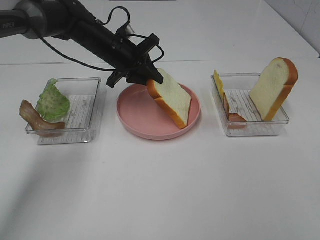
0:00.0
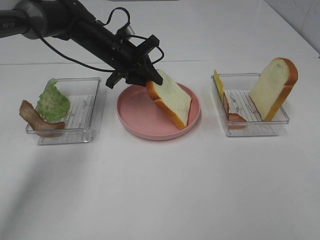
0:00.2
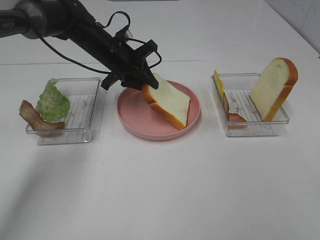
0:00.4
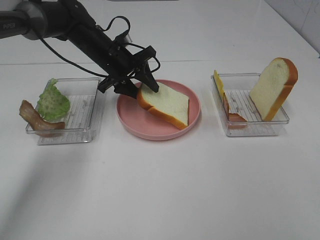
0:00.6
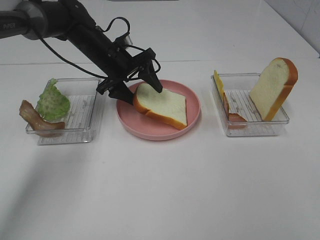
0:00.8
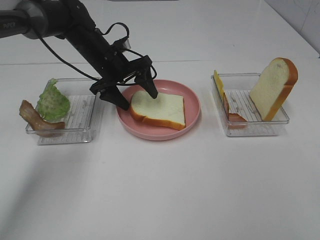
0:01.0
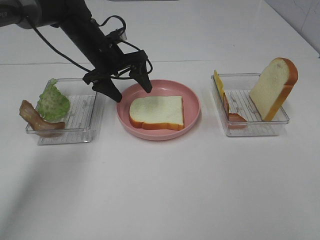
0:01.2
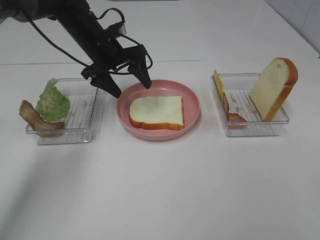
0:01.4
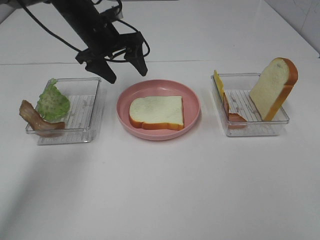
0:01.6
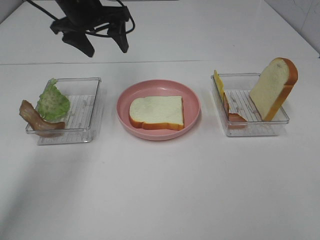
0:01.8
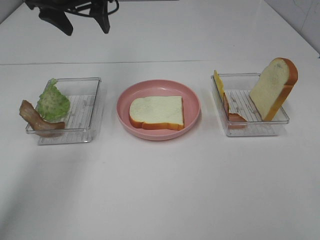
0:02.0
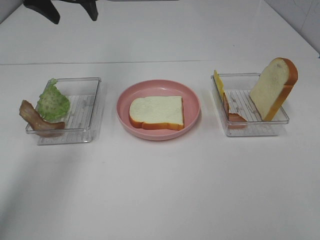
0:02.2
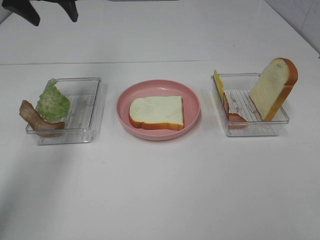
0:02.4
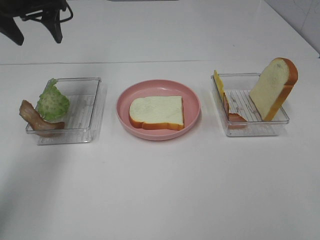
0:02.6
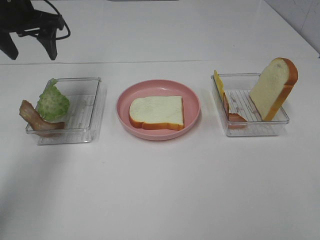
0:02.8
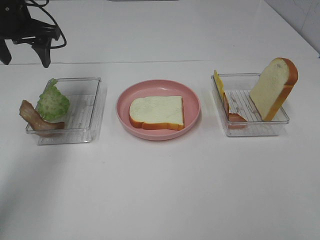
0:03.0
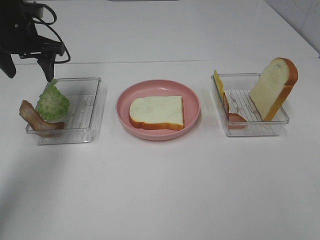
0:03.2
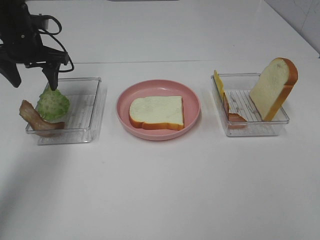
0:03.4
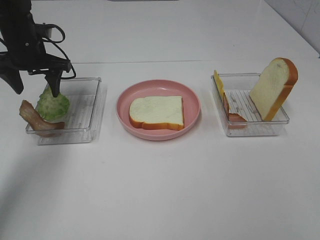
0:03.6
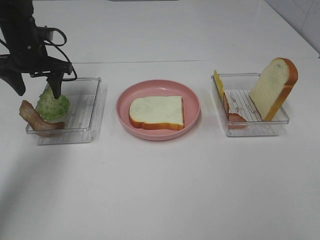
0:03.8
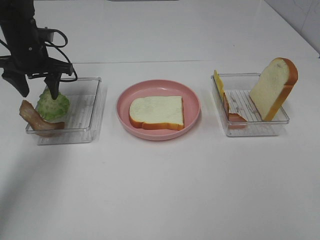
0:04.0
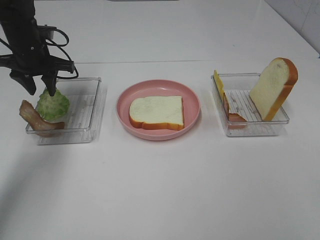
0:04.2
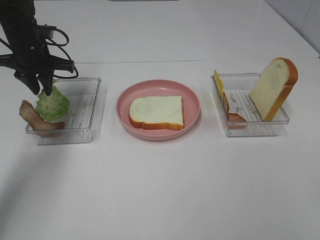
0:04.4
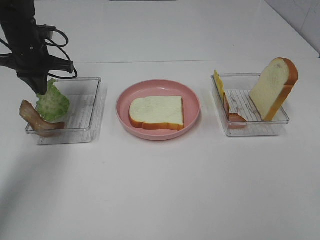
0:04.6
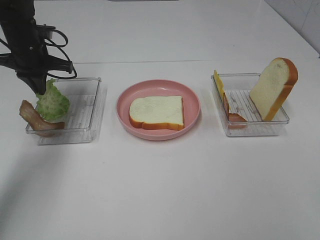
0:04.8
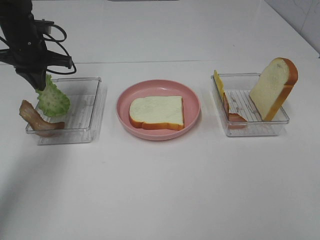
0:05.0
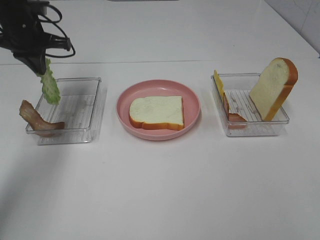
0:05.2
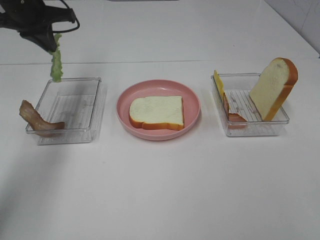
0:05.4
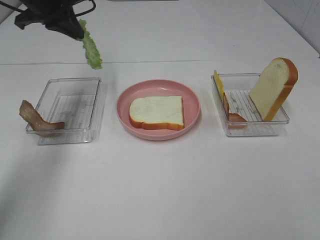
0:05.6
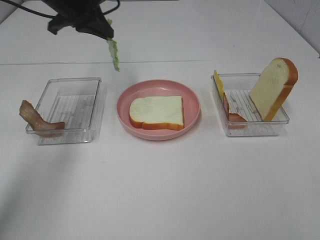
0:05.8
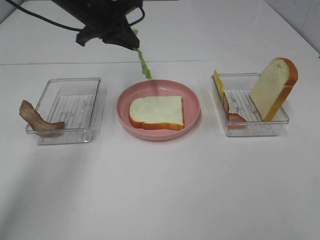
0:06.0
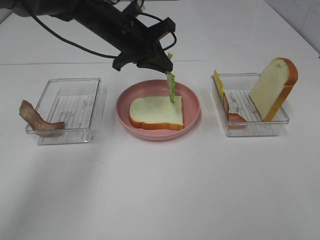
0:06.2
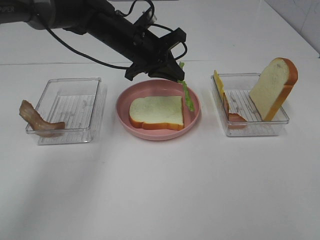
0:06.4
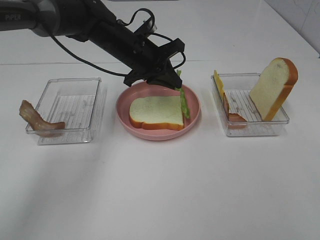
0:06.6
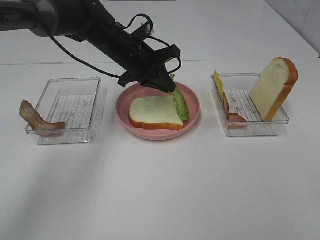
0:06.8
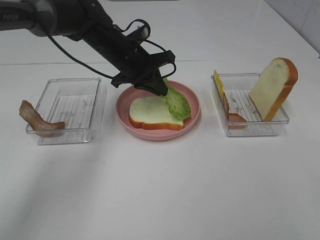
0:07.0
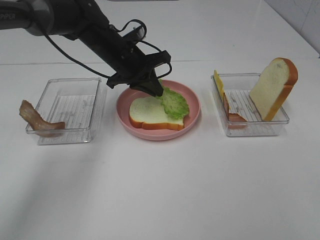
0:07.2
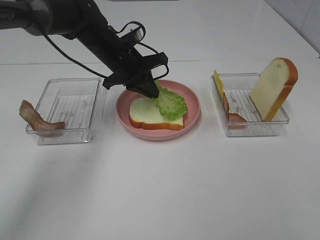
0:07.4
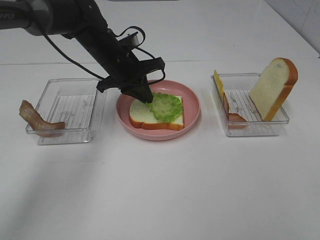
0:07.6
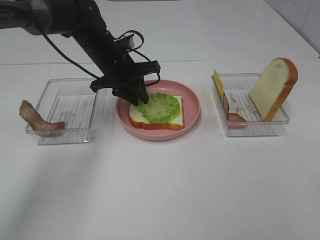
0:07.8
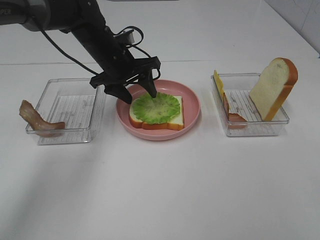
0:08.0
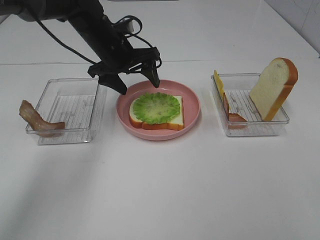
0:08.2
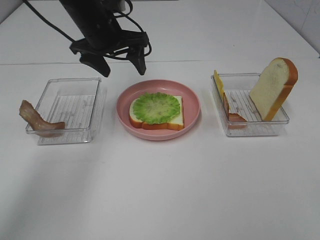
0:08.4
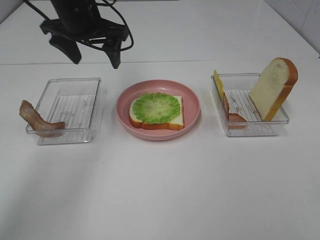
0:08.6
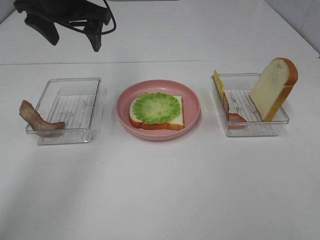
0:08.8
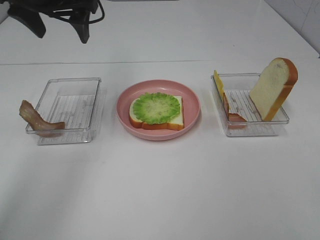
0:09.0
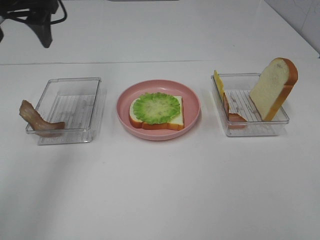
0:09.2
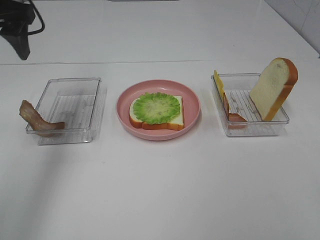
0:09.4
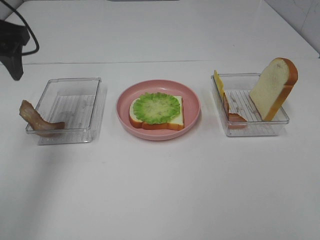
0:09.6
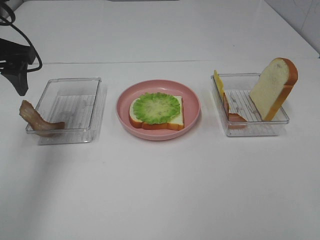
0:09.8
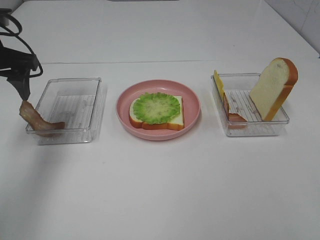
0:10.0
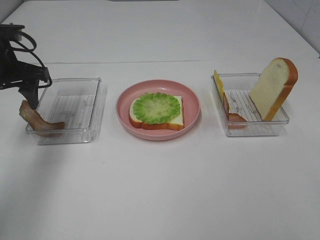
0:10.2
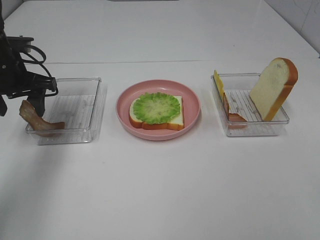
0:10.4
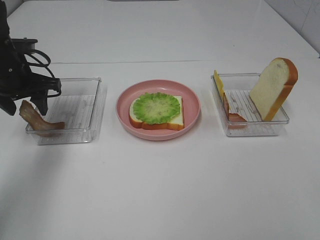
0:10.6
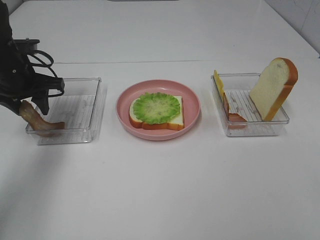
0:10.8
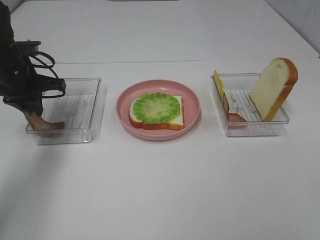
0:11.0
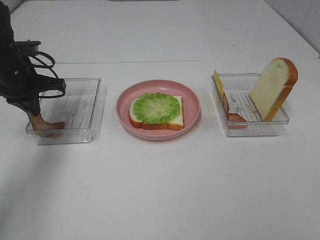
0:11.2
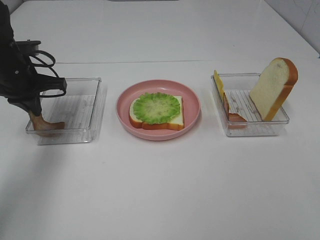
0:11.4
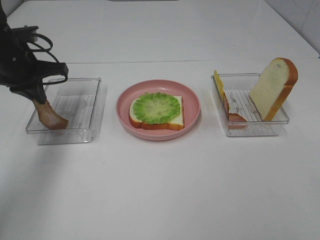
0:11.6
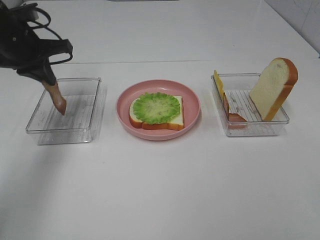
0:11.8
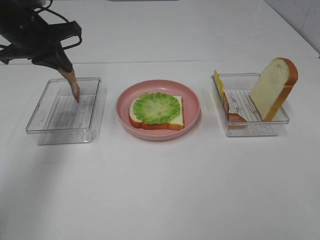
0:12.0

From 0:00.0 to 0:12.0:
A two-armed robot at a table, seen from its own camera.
Task of the whole recording: Make sandwiches.
Step, from 0:01.2 to 0:04.8: Left hand:grab the lettuce slice.
Step, from 0:05.0 to 0:08.2: Left hand:place the lettuce slice on the bread slice.
Step, from 0:08.4 to 0:11.4: Left hand:grab the bacon.
From 0:00.0 to 0:01.6: The left gripper travels upward by roughly 5 cm, and opens its fingers.
From 0:01.6 to 0:03.0: The left gripper heads to the left, covering roughly 15 cm.
From 0:03.0 to 0:04.4: The left gripper goes some 10 cm downward, and closes up.
From 0:04.4 to 0:06.0: The left gripper goes about 15 cm to the right and upward.
From 0:06.0 to 0:07.6: The left gripper moves downward, roughly 10 cm.
From 0:07.6 to 0:09.0: The left gripper shifts some 20 cm upward and to the left, and opens its fingers.
From 0:09.0 to 0:10.4: The left gripper goes approximately 15 cm downward and to the left.
From 0:10.4 to 0:12.0: The left gripper travels upward by some 5 cm, and closes.

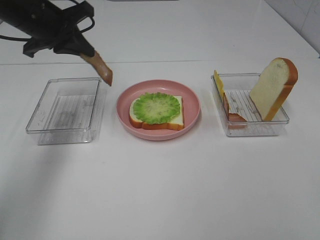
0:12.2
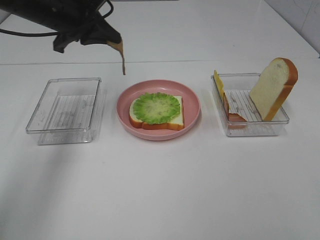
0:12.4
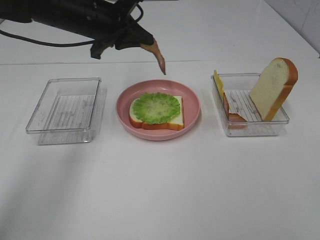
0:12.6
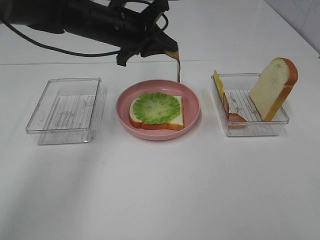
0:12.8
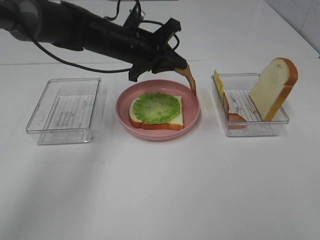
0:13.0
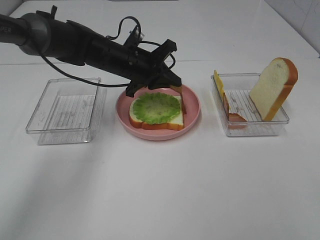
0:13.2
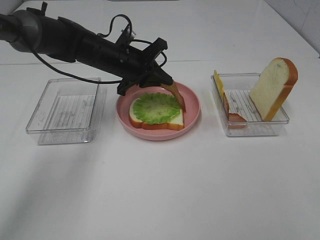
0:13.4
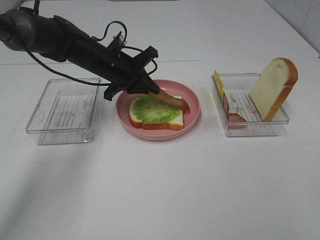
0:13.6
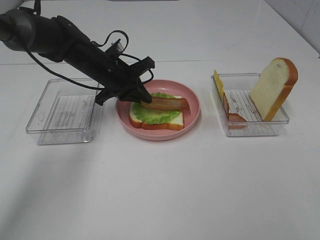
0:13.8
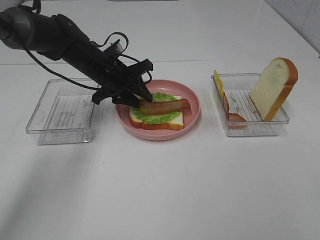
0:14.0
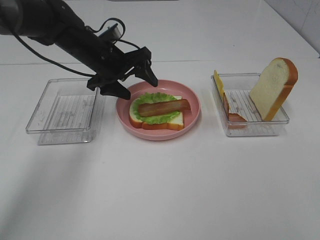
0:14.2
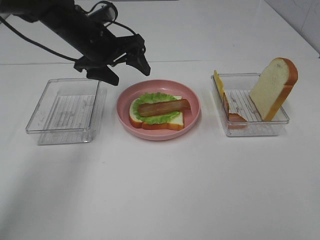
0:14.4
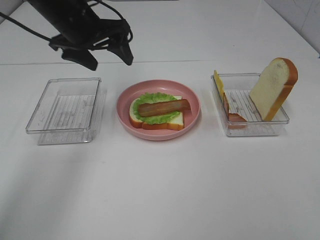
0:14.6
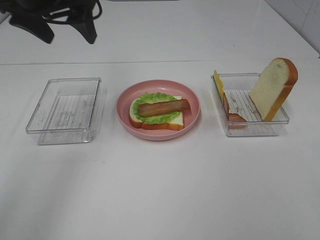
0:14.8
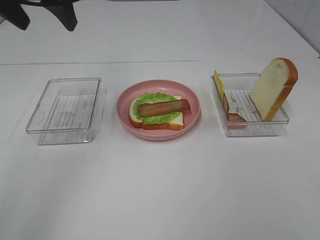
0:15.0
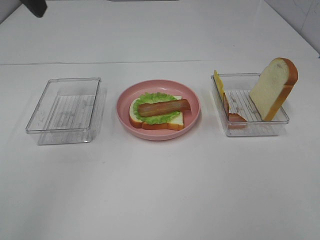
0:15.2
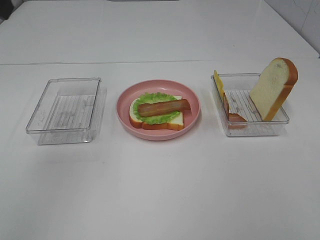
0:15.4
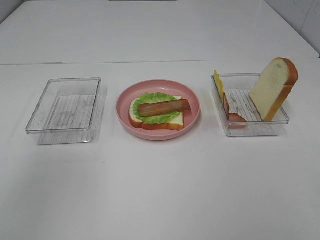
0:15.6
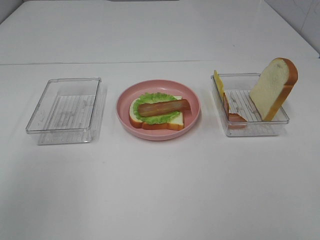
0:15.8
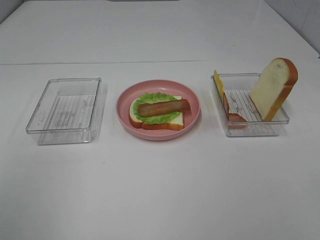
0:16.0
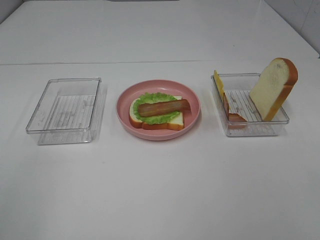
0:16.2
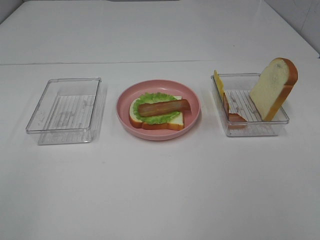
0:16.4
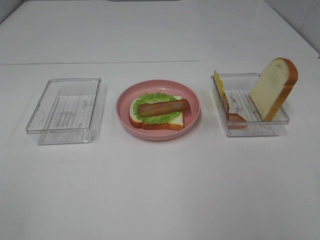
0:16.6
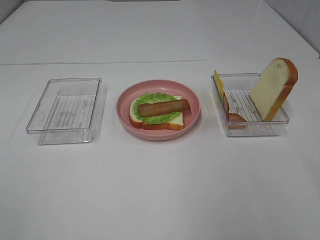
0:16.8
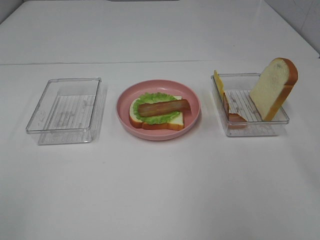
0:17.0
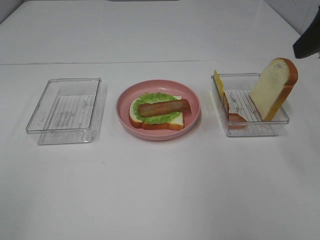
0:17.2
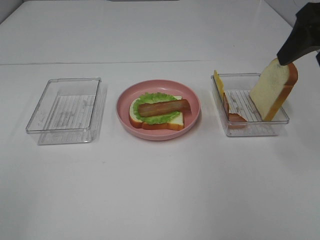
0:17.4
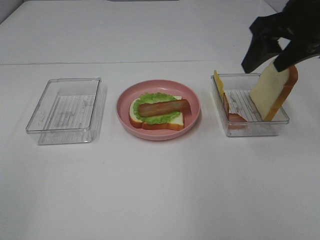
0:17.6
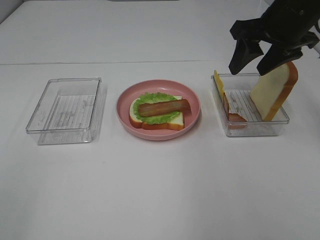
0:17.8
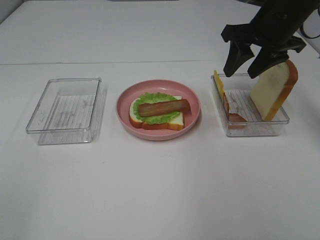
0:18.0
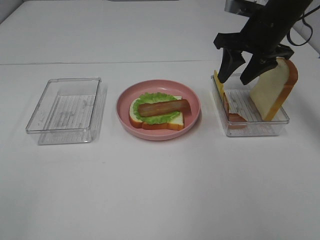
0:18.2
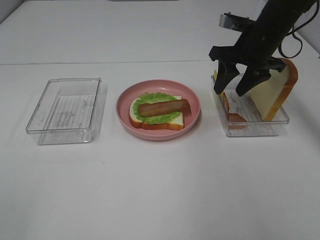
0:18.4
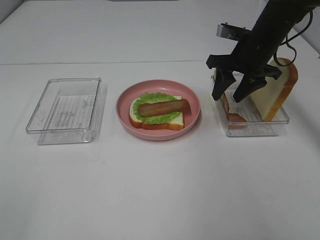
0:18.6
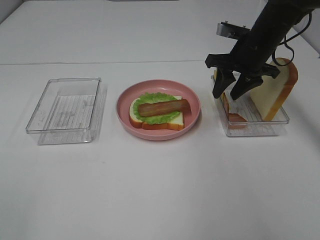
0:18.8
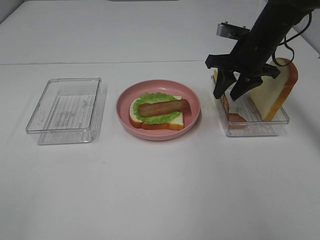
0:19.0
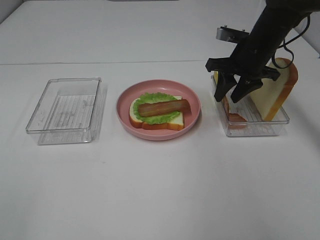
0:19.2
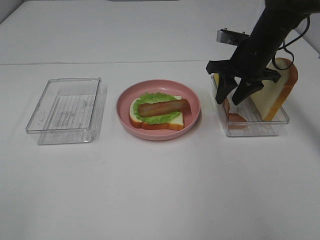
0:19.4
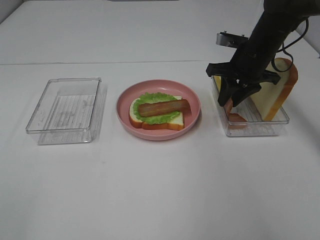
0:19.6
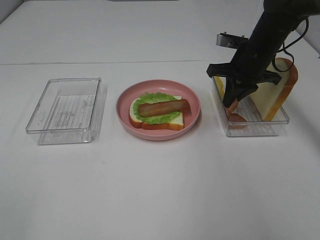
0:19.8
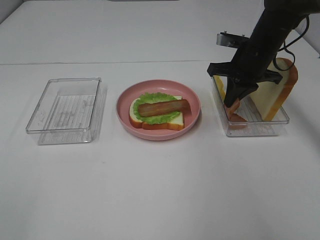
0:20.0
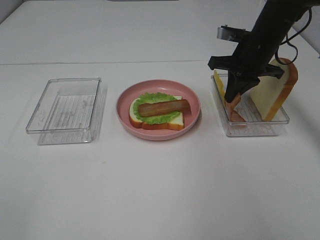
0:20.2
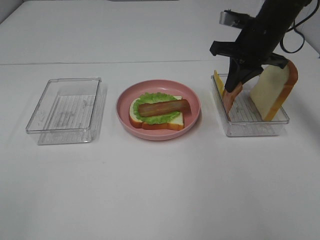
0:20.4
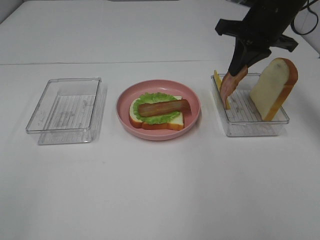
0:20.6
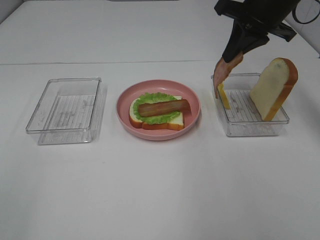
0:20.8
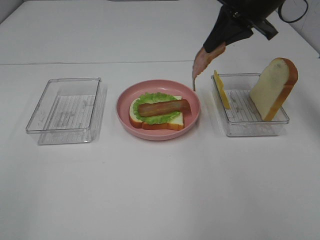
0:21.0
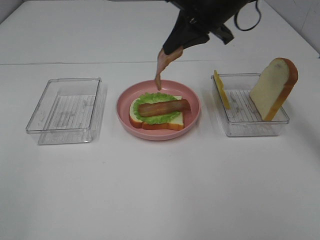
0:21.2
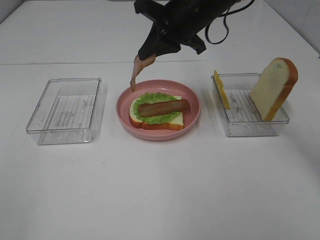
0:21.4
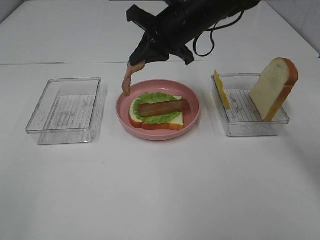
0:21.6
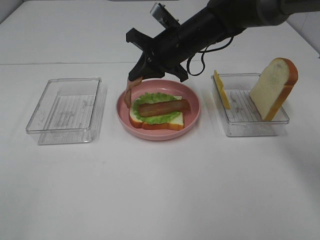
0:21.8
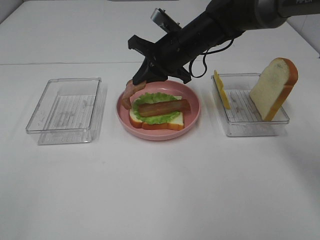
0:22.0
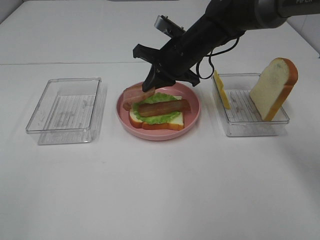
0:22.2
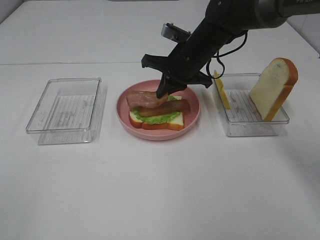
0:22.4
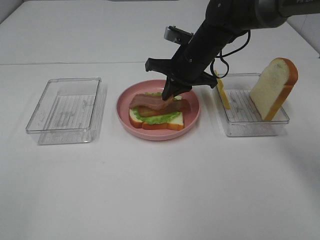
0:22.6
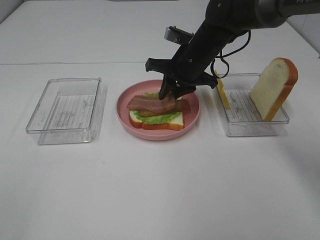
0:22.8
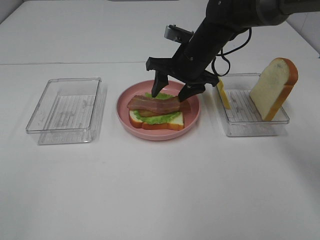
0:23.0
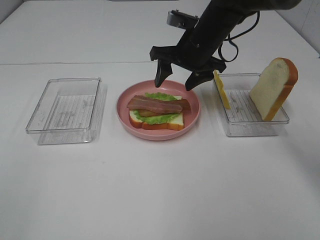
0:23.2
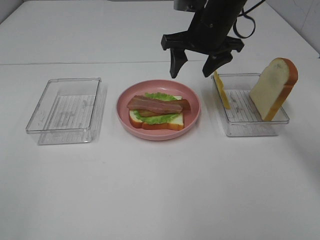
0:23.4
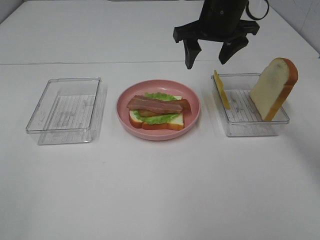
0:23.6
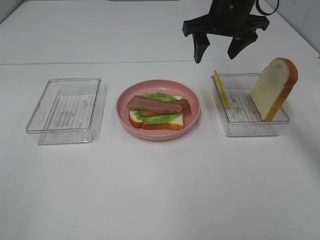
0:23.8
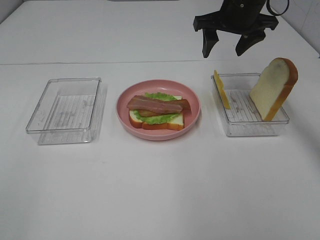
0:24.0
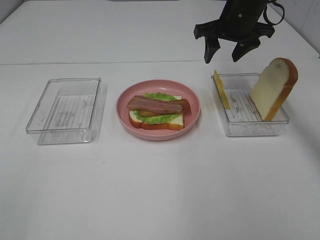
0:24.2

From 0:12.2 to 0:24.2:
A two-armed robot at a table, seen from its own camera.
Task of the whole recording: Make sandwiches.
Step, from 0:12.2 to 0:14.2: Left hand:place bacon on lettuce slice.
Step, from 0:14.4 to 0:20.0: Right hand:grab the bacon.
Step, from 0:20.2 to 0:23.2: Right hand:place bacon on bacon.
From 0:12.2 to 0:13.8: The left gripper travels downward and to the right by roughly 15 cm.
From 0:13.8 to 0:15.2: The left gripper is displaced upward and backward by about 30 cm, and opens up.
From 0:16.6 to 0:18.2: The right gripper heads forward, covering about 35 cm.
From 0:18.2 to 0:19.8: The right gripper heads downward, covering approximately 5 cm, and closes.
From 0:19.8 to 0:21.2: The right gripper shifts about 15 cm upward and to the left.
From 0:21.2 to 0:22.6: The right gripper heads downward, covering roughly 10 cm.
From 0:22.6 to 0:24.2: The right gripper moves to the right and upward, about 10 cm, and opens.
